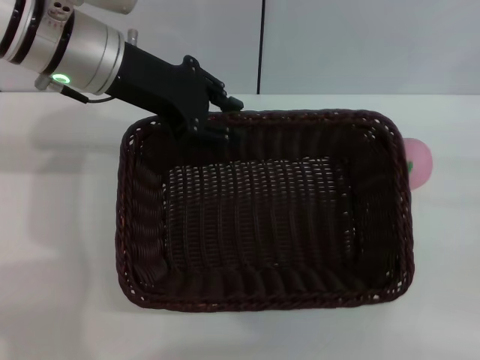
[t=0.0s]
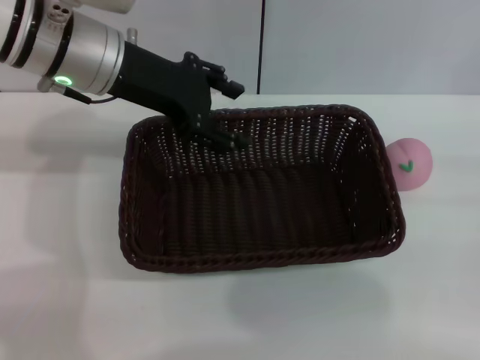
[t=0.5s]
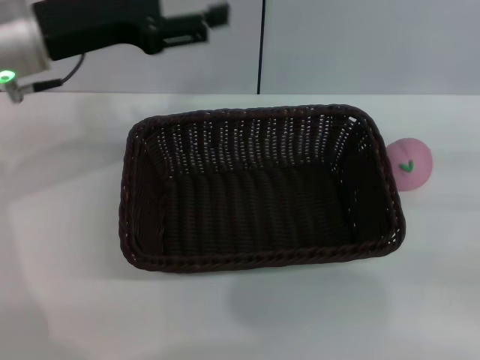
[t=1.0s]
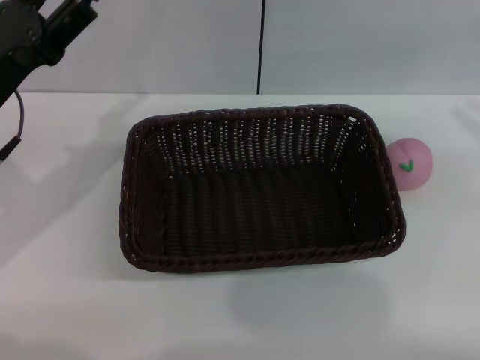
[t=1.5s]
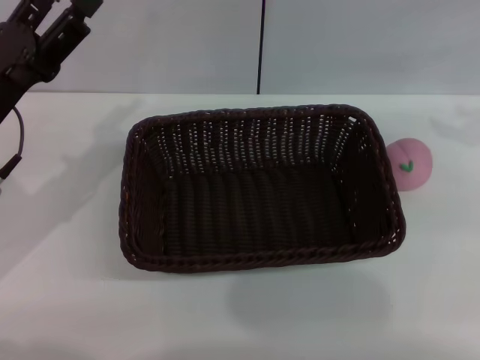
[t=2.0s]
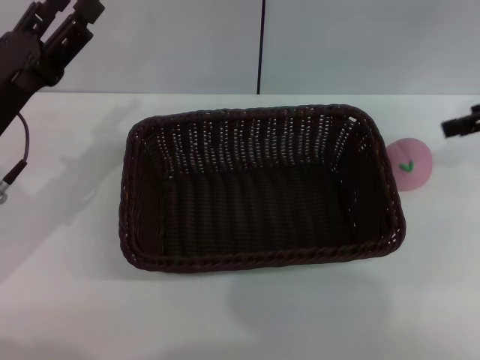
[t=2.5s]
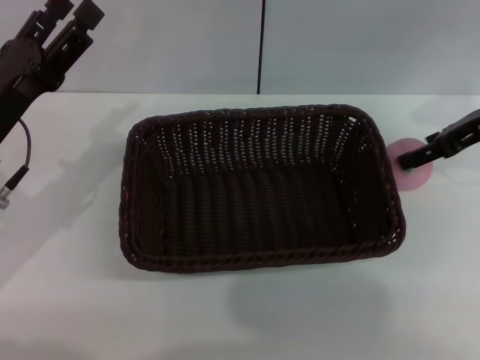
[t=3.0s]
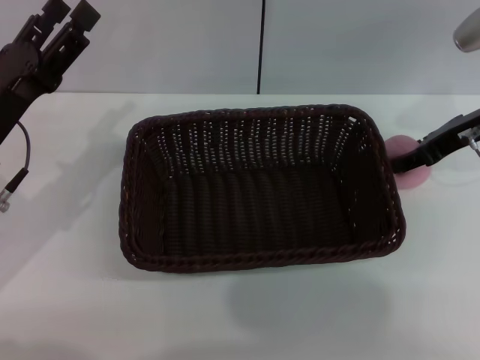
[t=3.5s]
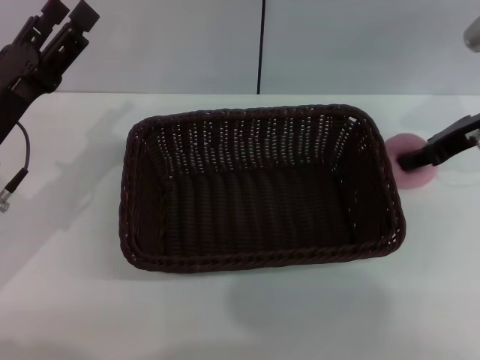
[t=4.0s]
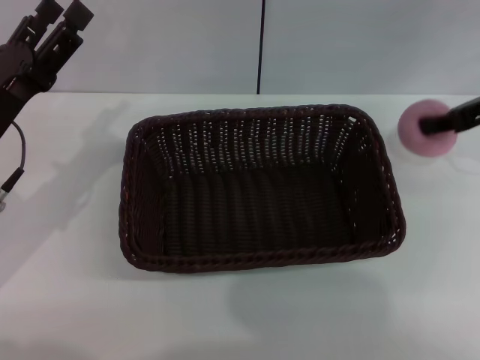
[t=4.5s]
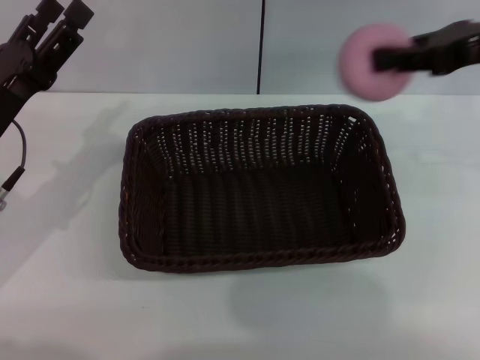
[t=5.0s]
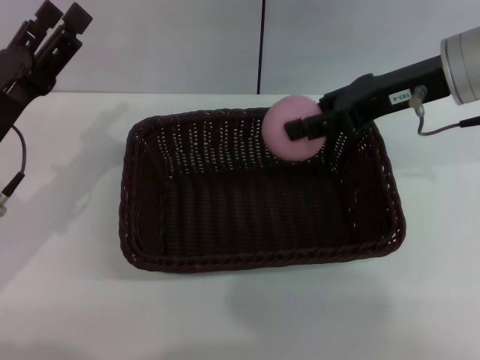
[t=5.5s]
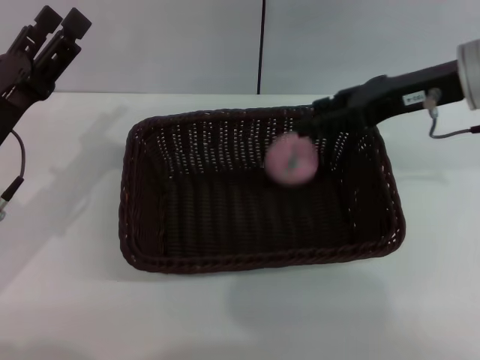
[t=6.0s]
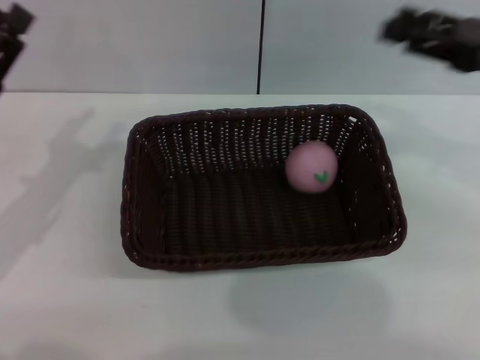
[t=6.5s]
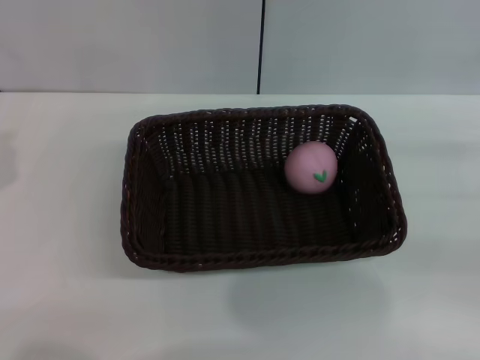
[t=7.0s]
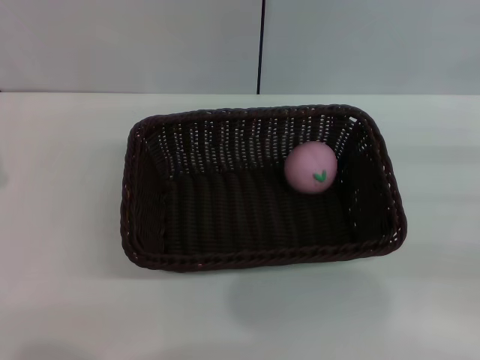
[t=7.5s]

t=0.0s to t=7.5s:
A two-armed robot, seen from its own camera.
Step, t=1.0s to t=4.5s: Pick up the peach with the left gripper.
t=0.0s to t=2.0s: The right gripper travels upward and forward by about 20 cm. The left gripper moves to the left, backward and downward, some 15 cm, and opens.
t=2.0s to t=4.0s: The right gripper travels to the left and downward by some 15 cm, and opens, then closes once more.
t=4.0s to t=5.5s: The right gripper is displaced to the left and upward by approximately 10 cm.
t=5.5s to t=7.5s: The right gripper moves to the right, backward and downward, roughly 25 cm, and opens its fingers, while the left gripper shifts roughly 10 cm backward and to the left, and closes its fingers.
